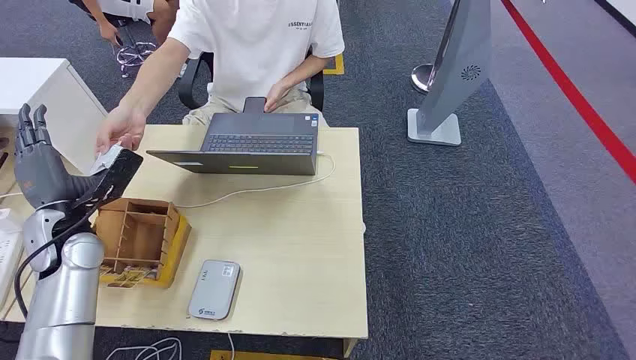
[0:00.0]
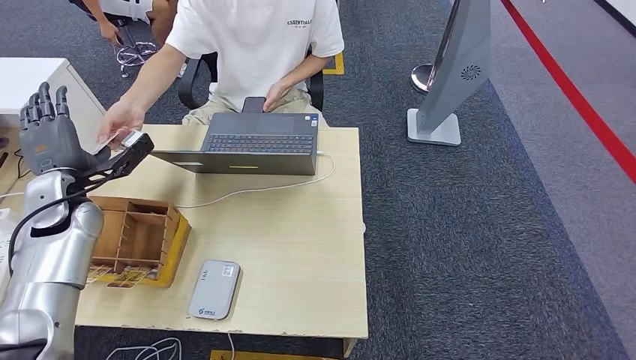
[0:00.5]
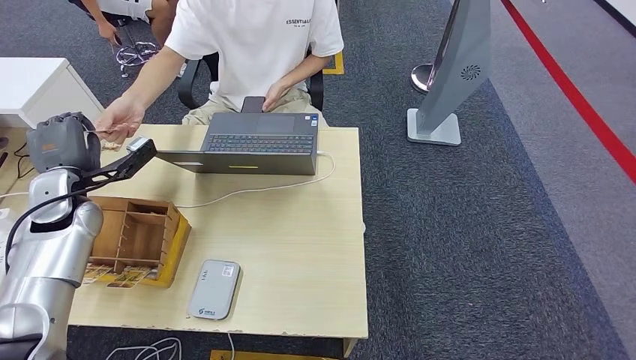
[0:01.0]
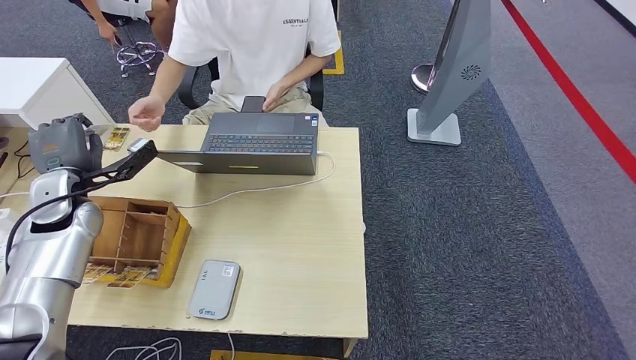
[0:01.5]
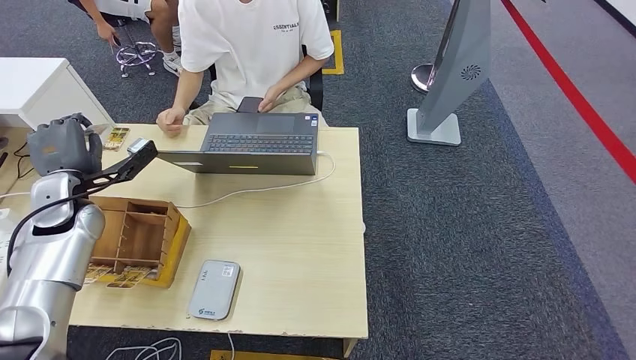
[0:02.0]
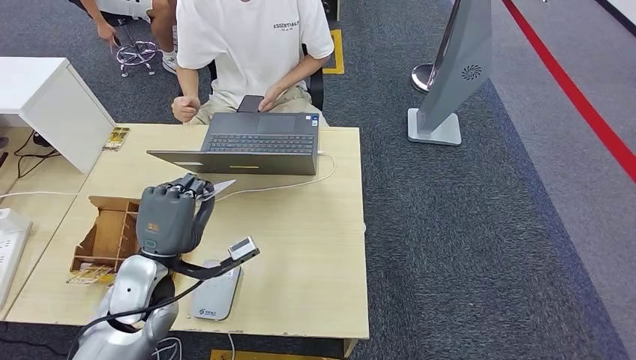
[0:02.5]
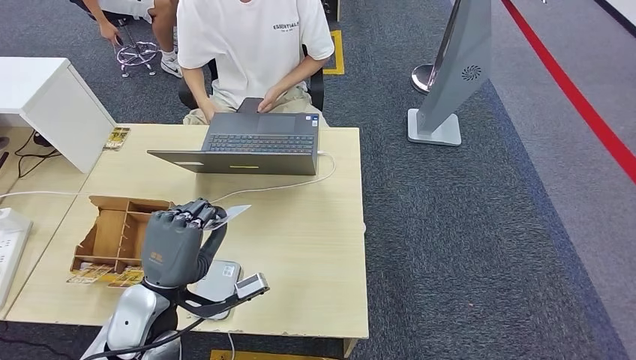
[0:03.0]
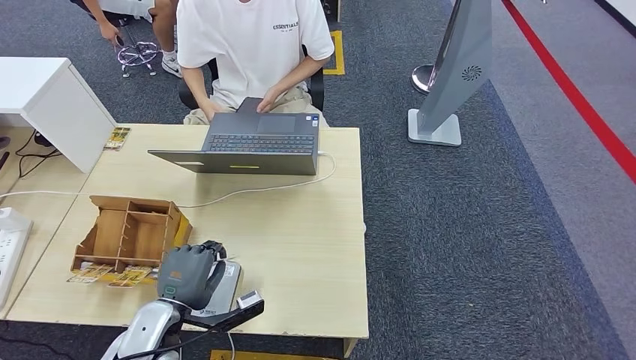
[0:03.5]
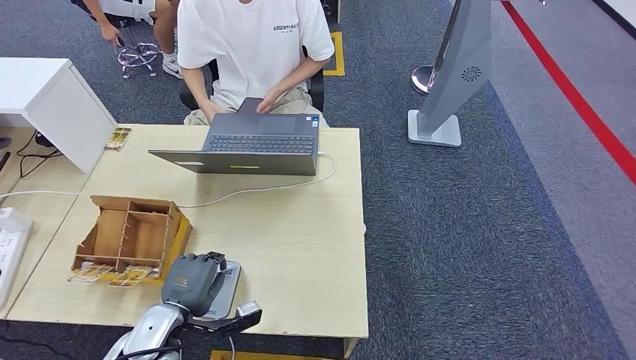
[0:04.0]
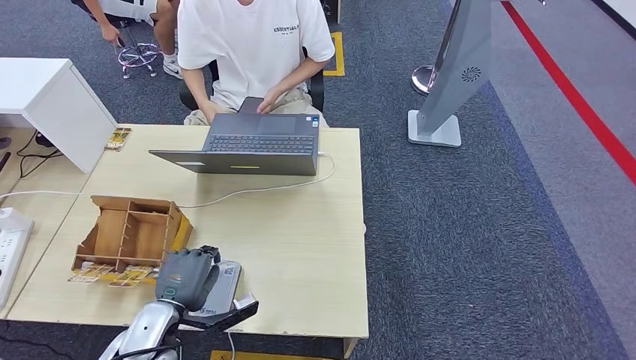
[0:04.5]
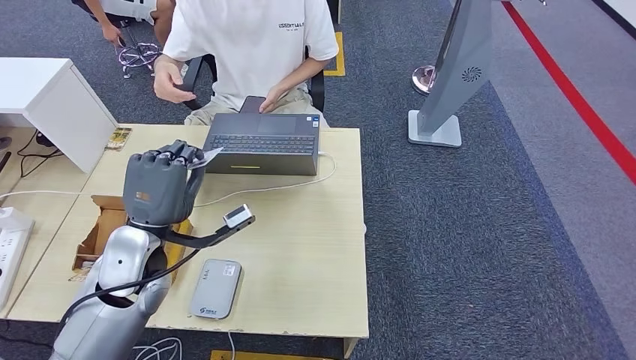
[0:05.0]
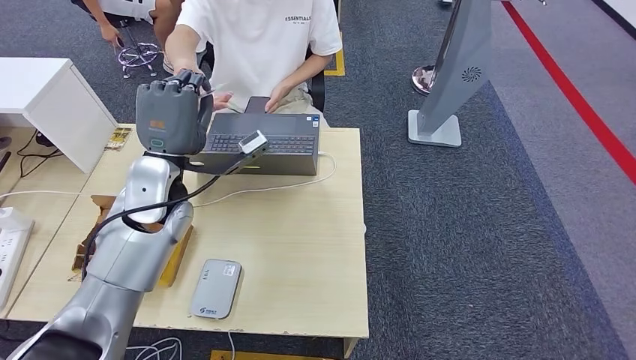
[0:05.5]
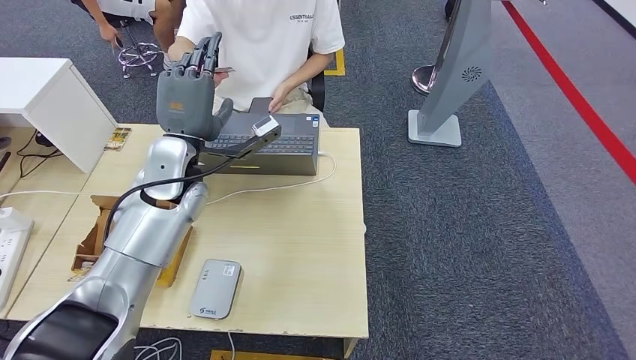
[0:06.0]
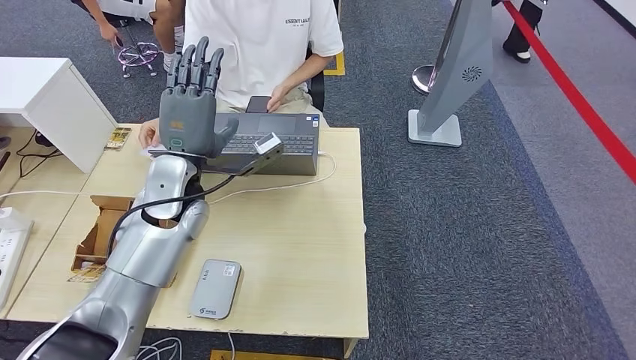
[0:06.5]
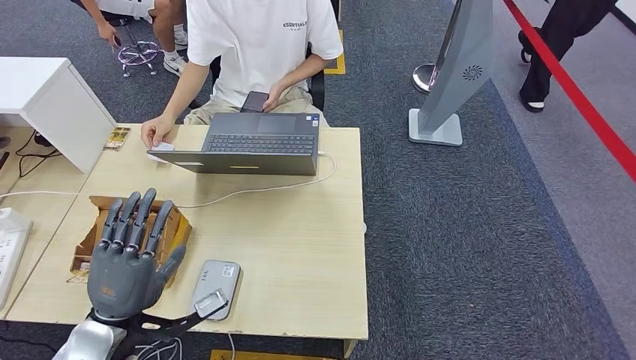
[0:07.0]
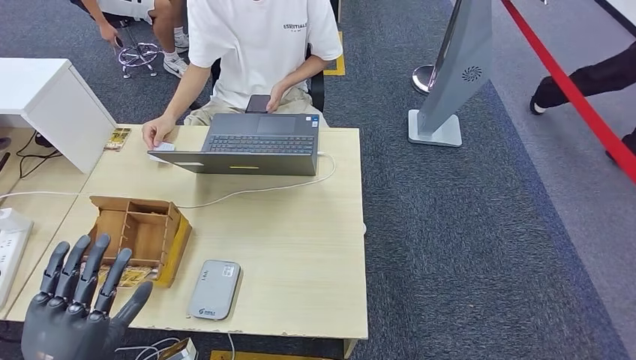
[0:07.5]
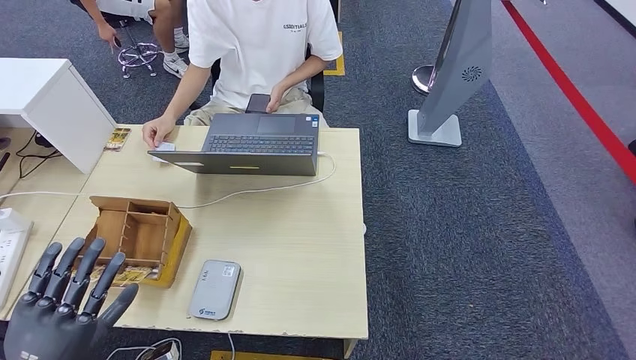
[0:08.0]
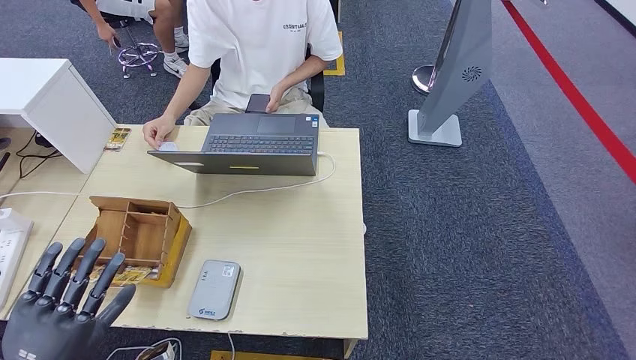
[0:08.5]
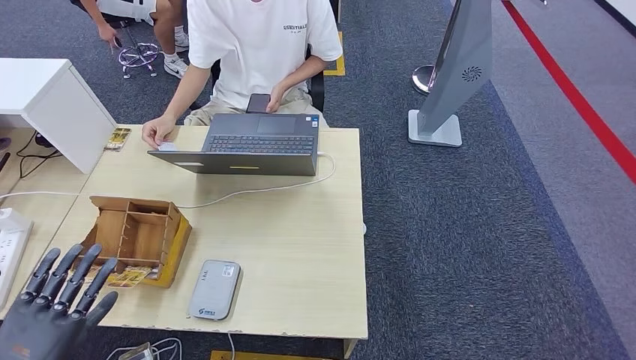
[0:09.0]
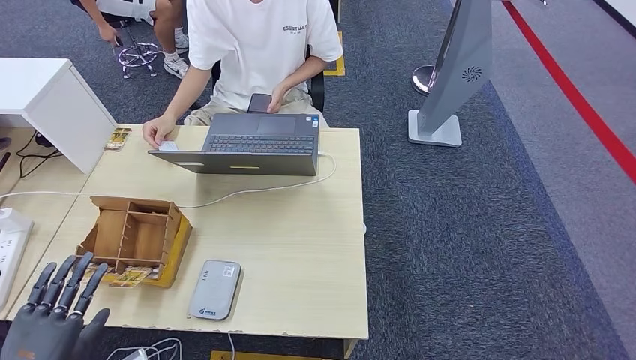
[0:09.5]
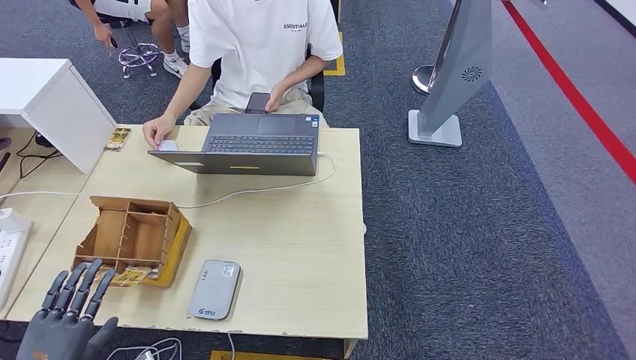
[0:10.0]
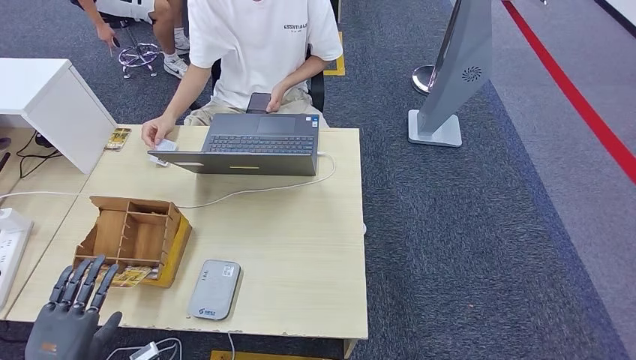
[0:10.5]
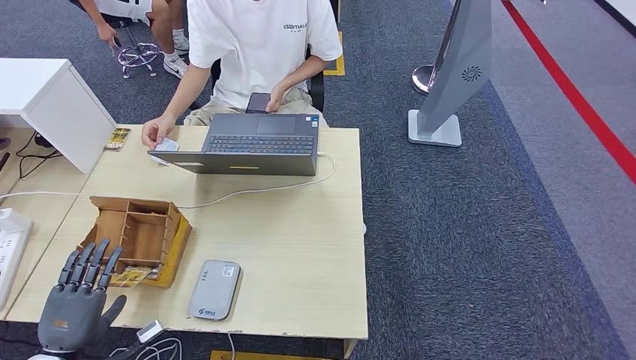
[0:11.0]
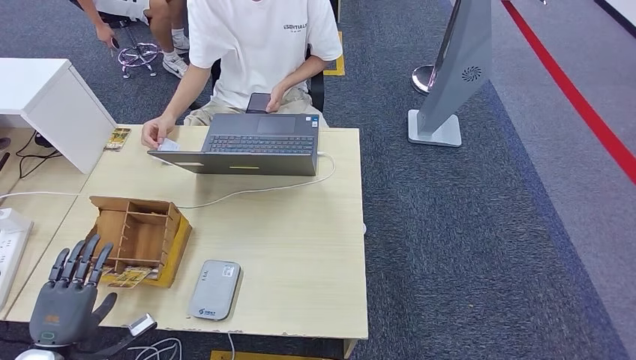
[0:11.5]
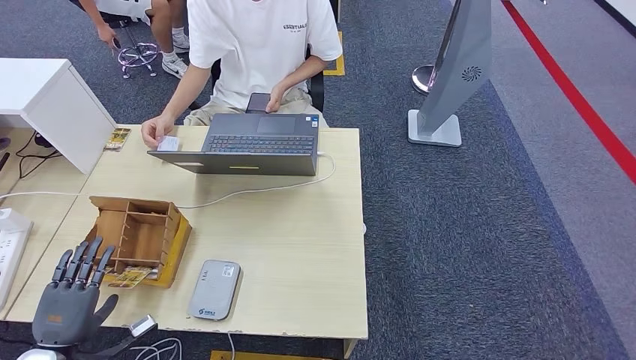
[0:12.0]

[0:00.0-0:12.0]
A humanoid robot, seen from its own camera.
Step, 0:00.0 to 0:01.0: Take the ID card from the person's hand.
Step, 0:01.5 to 0:04.5: Place the ID card on the card reader.
Step, 0:05.0 to 0:08.5: Hand the ID card to the person.
0:02.0 to 0:04.0: The left hand shifts about 30 cm backward, to the right and downward.
0:04.0 to 0:06.0: The left hand moves upward and forward, roughly 30 cm.
0:06.0 to 0:08.0: The left hand is displaced backward and to the left by approximately 35 cm.
0:08.0 to 0:10.0: The left hand shifts approximately 10 cm downward and to the left.
0:10.0 to 0:12.0: The left hand goes some 5 cm forward.

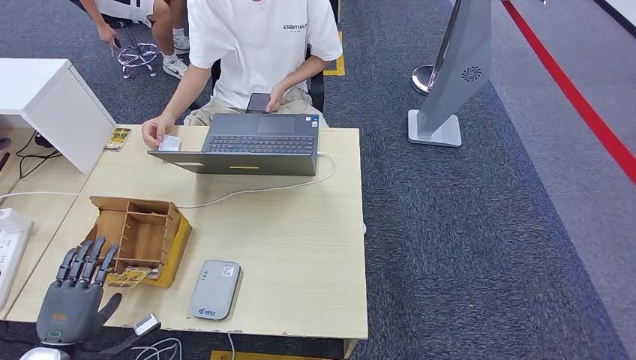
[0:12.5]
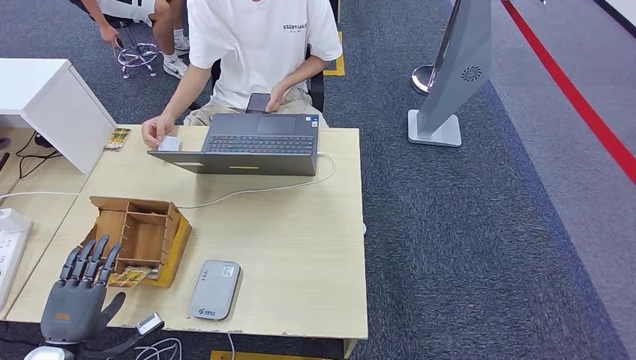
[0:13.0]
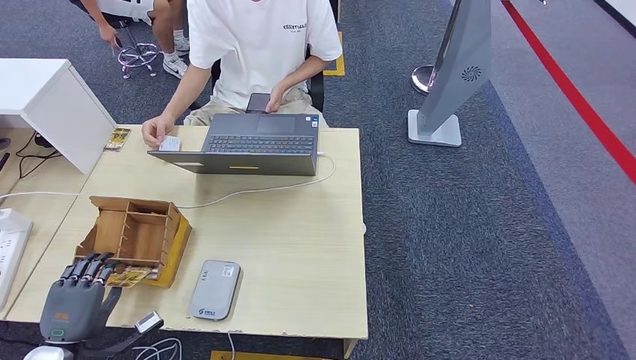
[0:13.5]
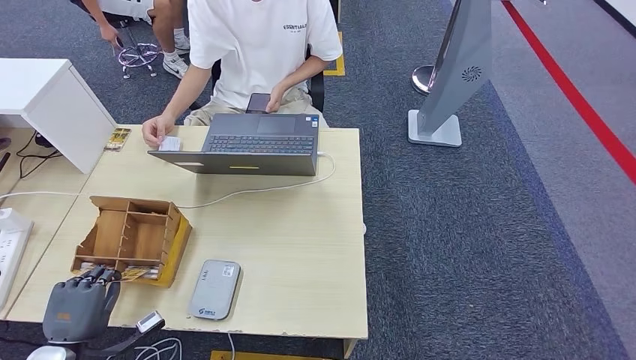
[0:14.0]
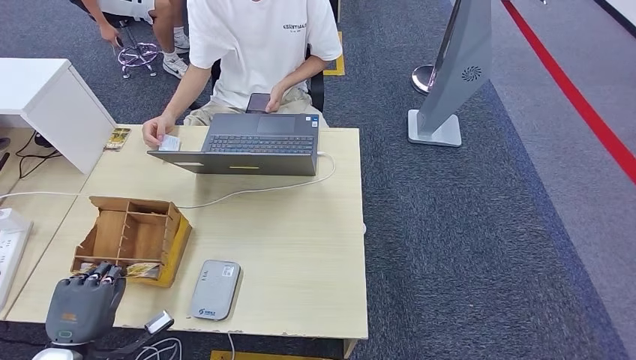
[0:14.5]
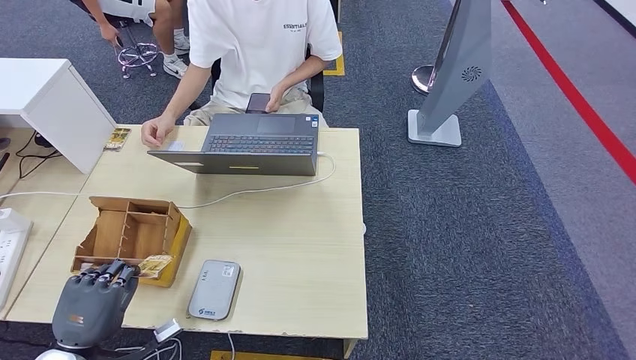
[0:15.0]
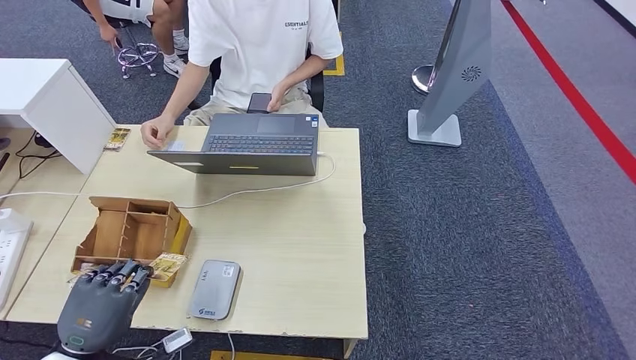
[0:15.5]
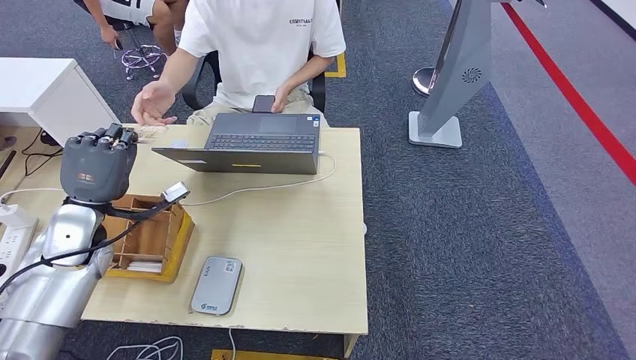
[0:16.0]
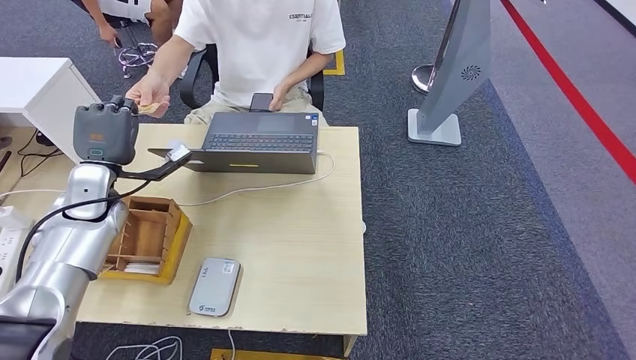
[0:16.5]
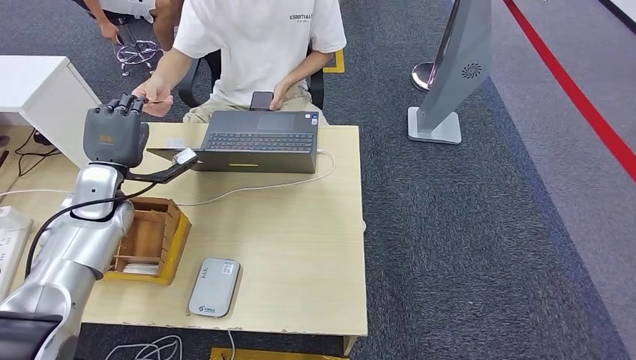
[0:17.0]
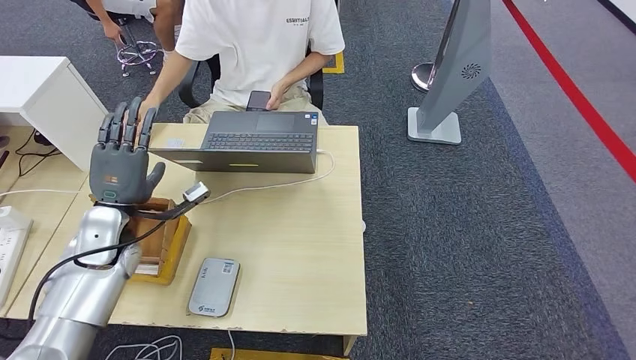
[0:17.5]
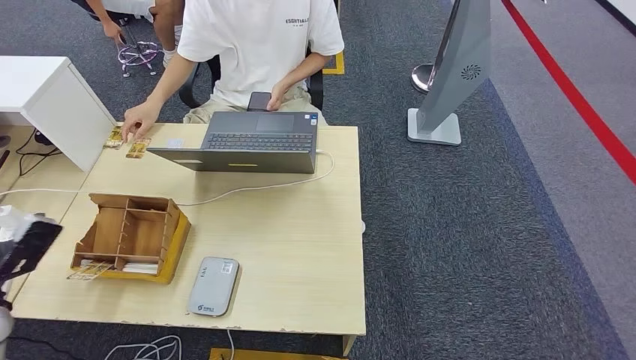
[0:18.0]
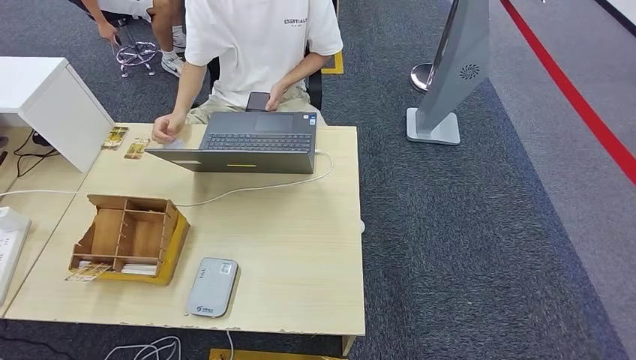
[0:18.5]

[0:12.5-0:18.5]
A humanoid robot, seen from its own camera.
Step, 0:12.5 to 0:15.0: Pick up the room key from the key card box.
Step, 0:15.5 to 0:18.5: Hand the room key to the person.
0:12.5 to 0:14.5: The hands move only a little.
0:14.5 to 0:16.5: The left hand shifts some 30 cm forward and upward.
0:16.5 to 0:18.5: The left hand shifts approximately 40 cm backward and to the left.
